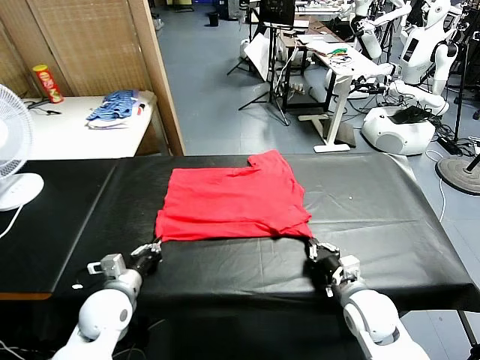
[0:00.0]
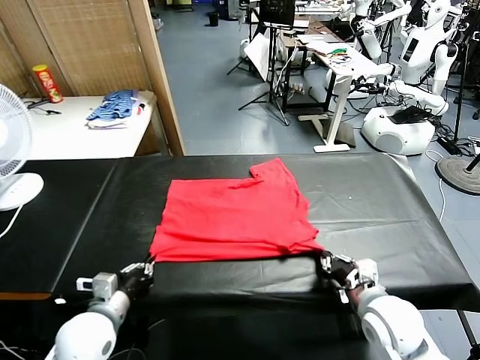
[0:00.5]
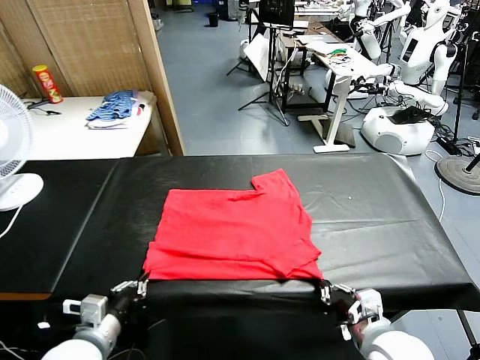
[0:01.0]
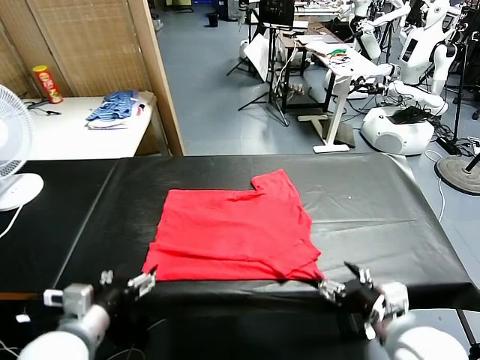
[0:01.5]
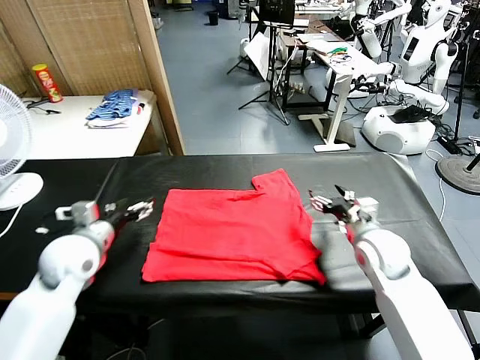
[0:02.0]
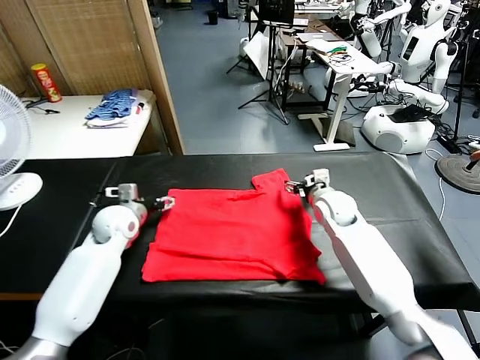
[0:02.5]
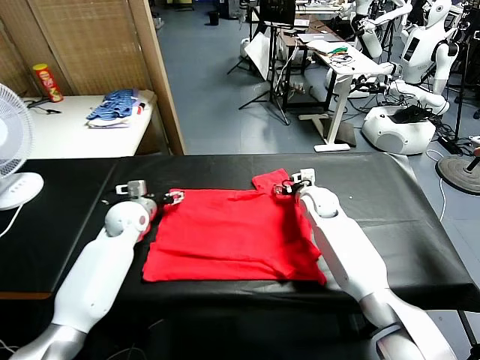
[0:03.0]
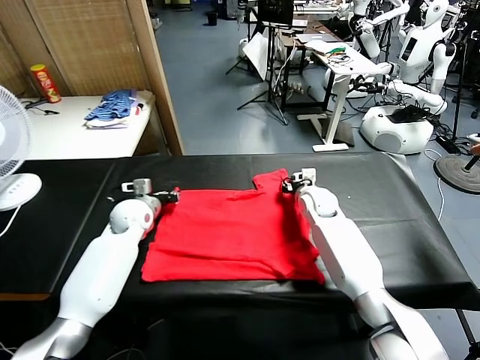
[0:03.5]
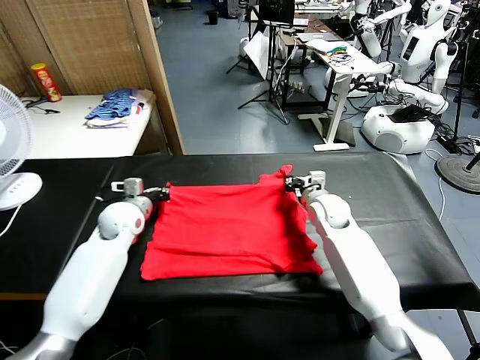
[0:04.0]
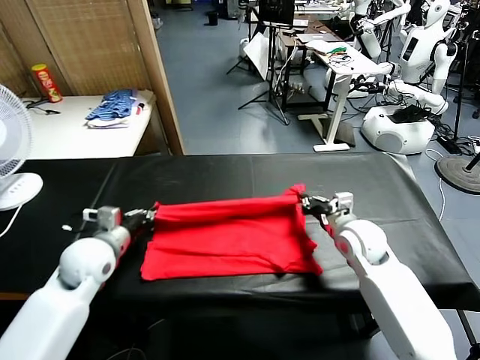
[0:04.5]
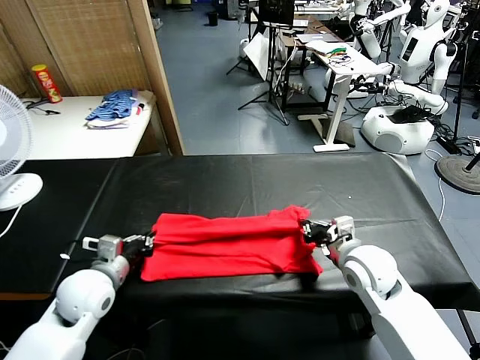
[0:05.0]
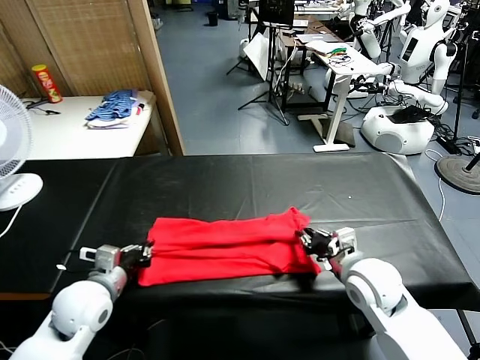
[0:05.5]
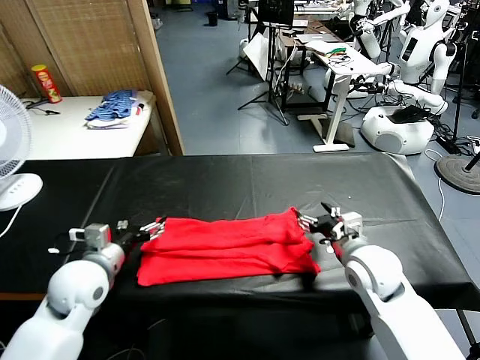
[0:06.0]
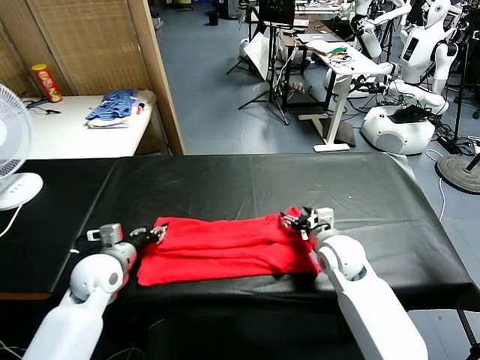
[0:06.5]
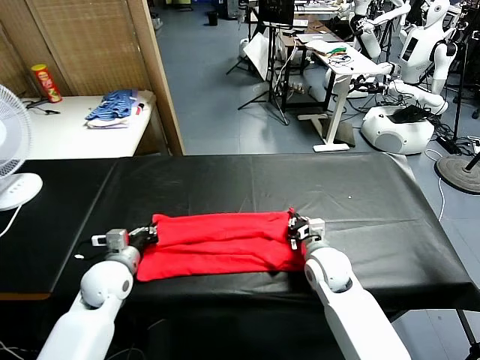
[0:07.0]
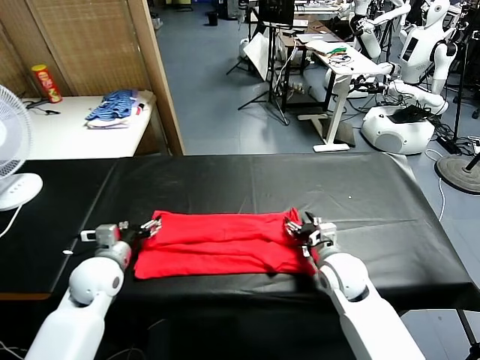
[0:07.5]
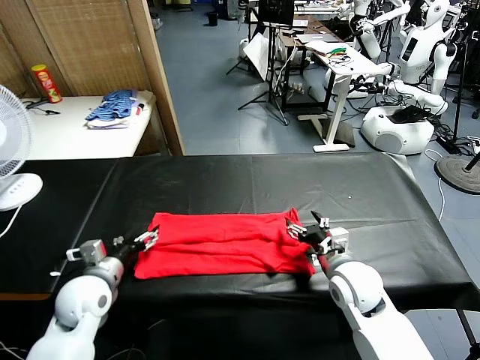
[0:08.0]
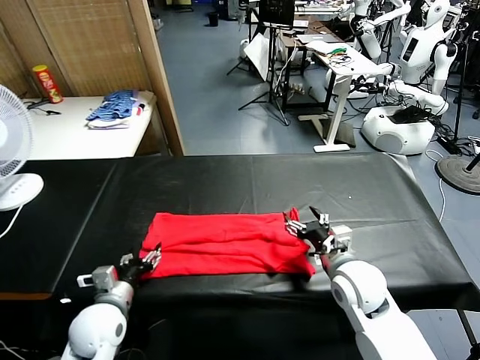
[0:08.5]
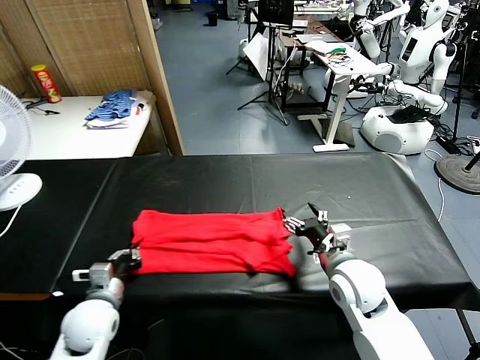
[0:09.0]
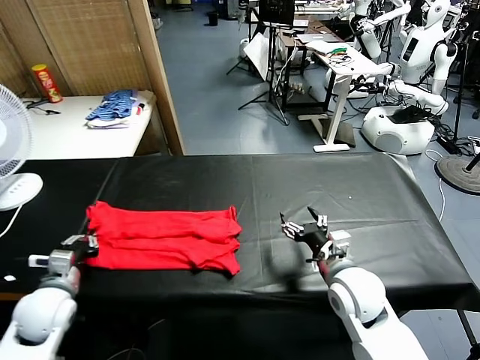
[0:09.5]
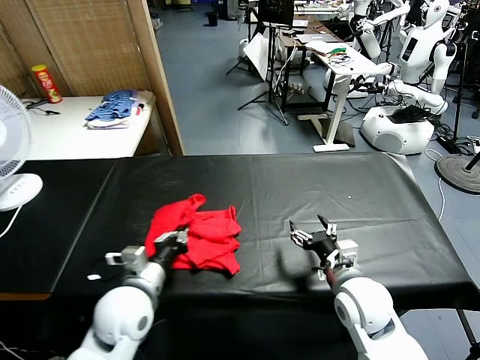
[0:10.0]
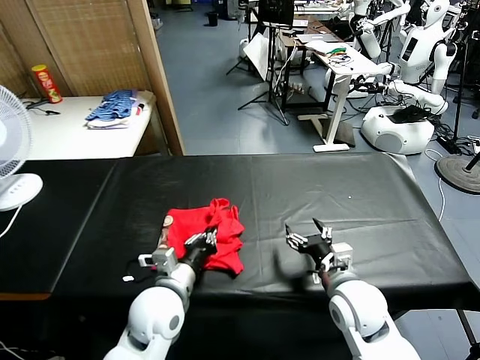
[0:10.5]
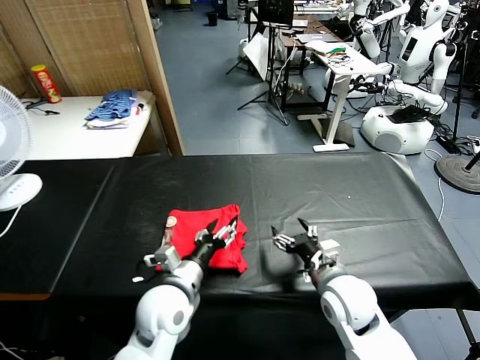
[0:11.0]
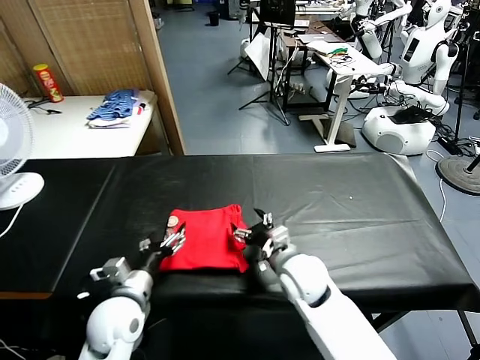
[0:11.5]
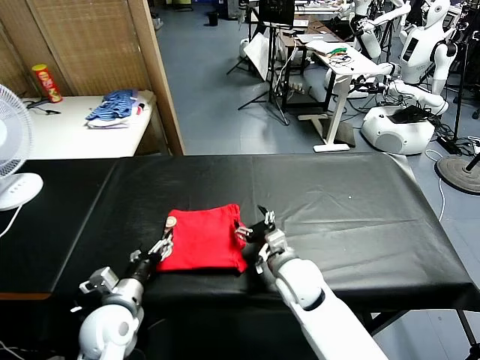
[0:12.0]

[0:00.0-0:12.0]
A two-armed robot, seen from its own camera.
Task of the whole recording: fold and organize the clothes.
Step, 0:01.5 to 0:03.5: use both grippers simultaneously to clamp the upper edge of the clothing fabric.
Step, 0:04.0 to 0:05.5: use both grippers to drag the upper edge of the fabric backward and fold it over the lower edge.
Step, 0:06.0 to 0:08.5: use the left gripper to clamp the left edge of the fabric.
Step, 0:09.0 to 0:11.0: use the left gripper to drag the left edge of the fabric to the left and folds it over the right edge.
0:00.0 to 0:02.0: The left gripper heads upward and forward, covering some 15 cm, and opens its fingers, while the right gripper moves forward, approximately 15 cm, and opens up.
0:02.0 to 0:04.0: The right gripper travels forward and back again, roughly 10 cm each way, and closes up; the left gripper is displaced forward by some 5 cm, and closes up.
0:04.0 to 0:06.0: The grippers both shift backward by about 15 cm. The right gripper opens. Meanwhile the left gripper opens its fingers.
0:06.0 to 0:08.0: The left gripper shifts roughly 5 cm downward, and closes, then reopens, while the right gripper closes and opens again.
0:08.0 to 0:10.0: The left gripper shifts about 10 cm to the right, and closes.
0:10.0 to 0:12.0: The right gripper travels to the left and forward by approximately 10 cm. Meanwhile the left gripper heads downward and to the left, covering roughly 10 cm, and opens up.

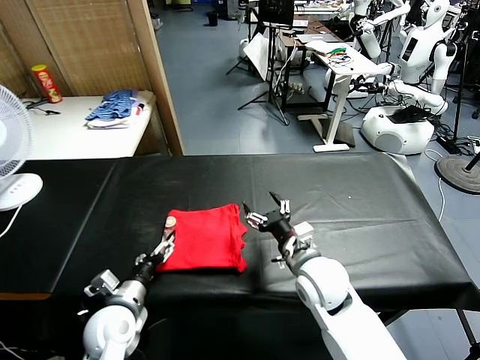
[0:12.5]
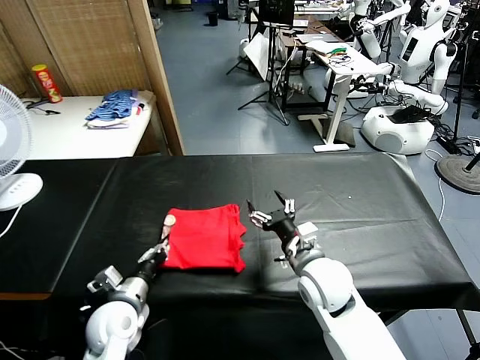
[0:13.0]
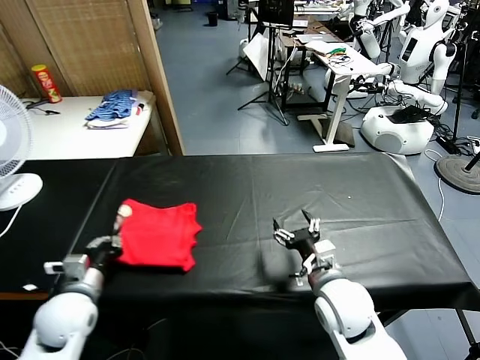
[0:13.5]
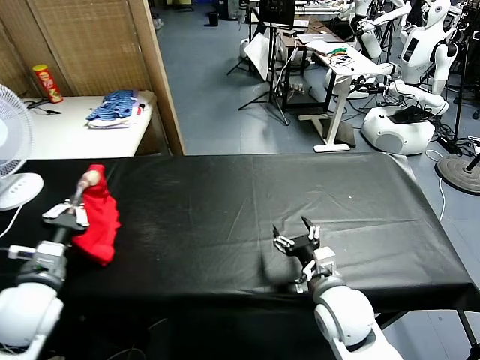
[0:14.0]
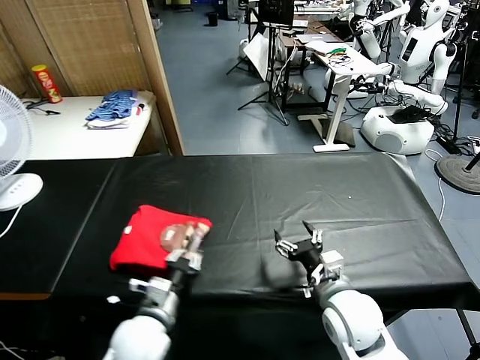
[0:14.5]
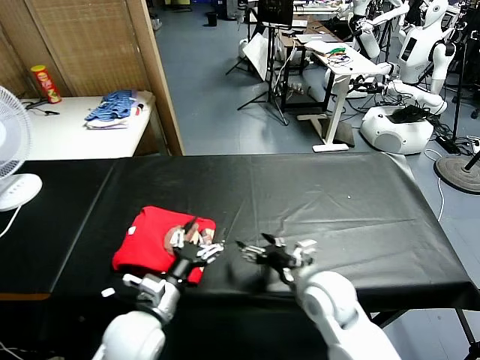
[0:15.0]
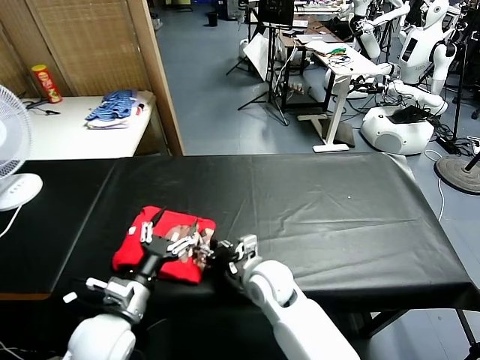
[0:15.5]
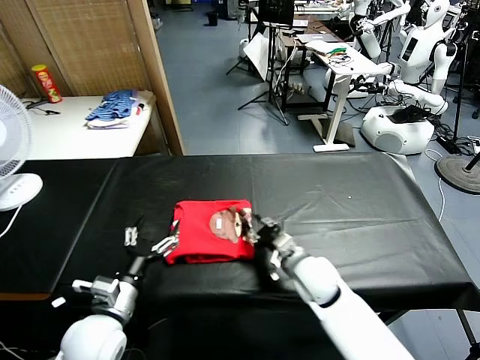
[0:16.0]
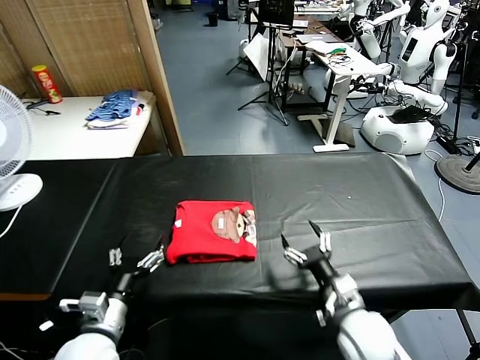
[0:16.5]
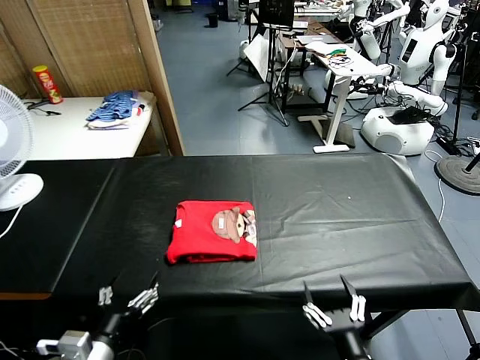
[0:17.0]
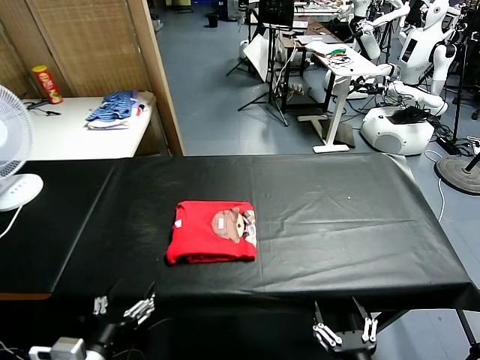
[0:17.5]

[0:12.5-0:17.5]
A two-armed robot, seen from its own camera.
Task of the whole recording: fold and organize the clothes.
Step, 0:12.5 to 0:14.5: Flip the folded clothes over with left gripper.
Step, 0:15.0 to 0:16.0: Drag the clothes to the center of the table.
0:12.5 to 0:15.0: The left gripper is displaced to the right and upward by approximately 10 cm, and closes, then reopens.
0:15.0 to 0:17.5: The left gripper moves backward and to the left, approximately 15 cm; the right gripper is displaced backward by approximately 25 cm, and closes, then reopens.

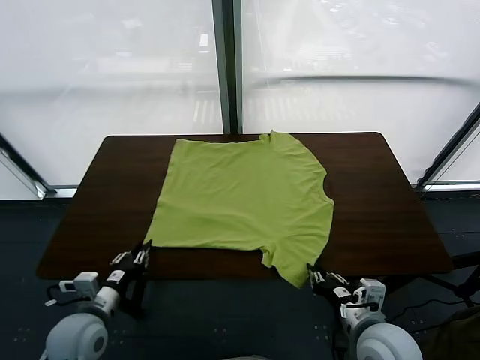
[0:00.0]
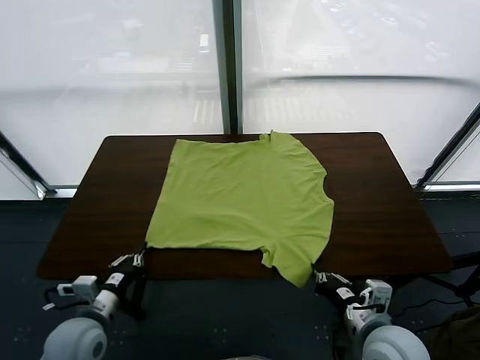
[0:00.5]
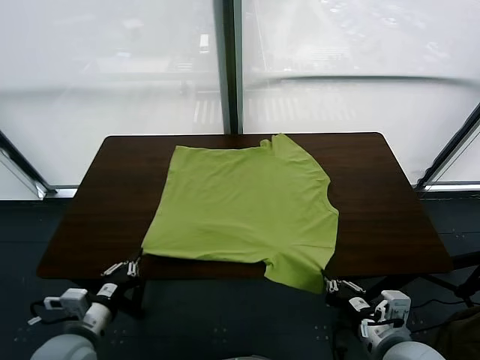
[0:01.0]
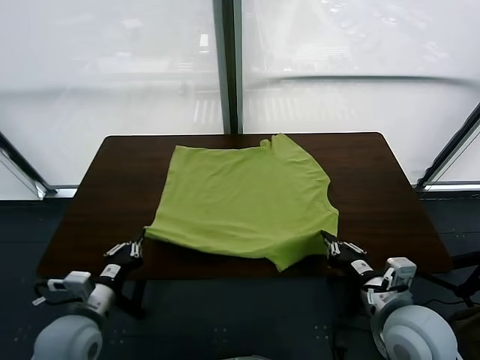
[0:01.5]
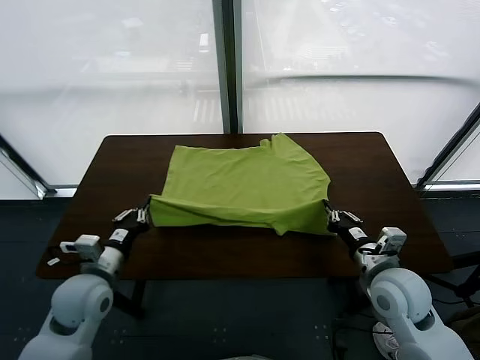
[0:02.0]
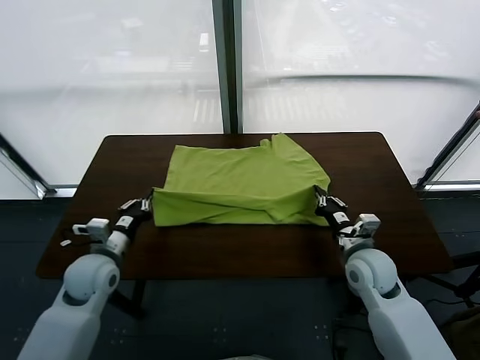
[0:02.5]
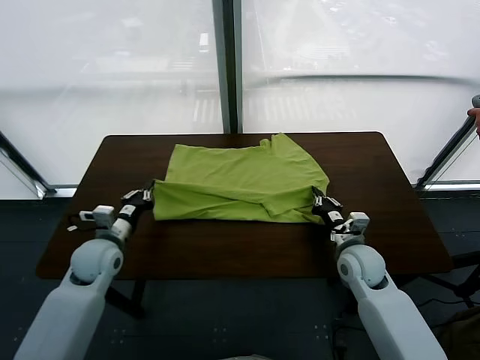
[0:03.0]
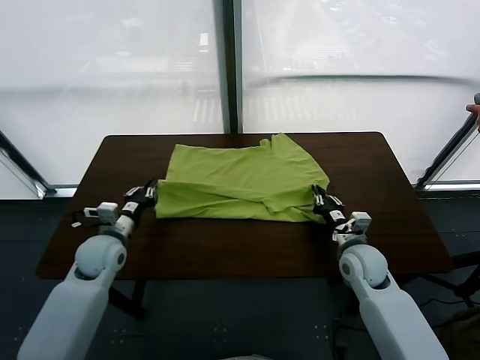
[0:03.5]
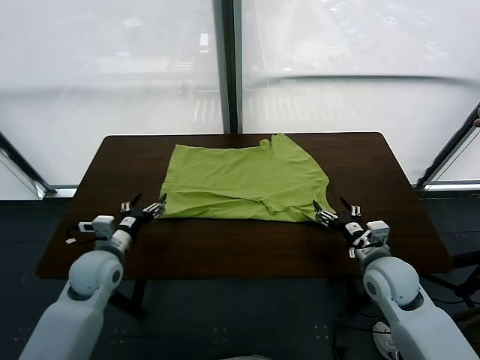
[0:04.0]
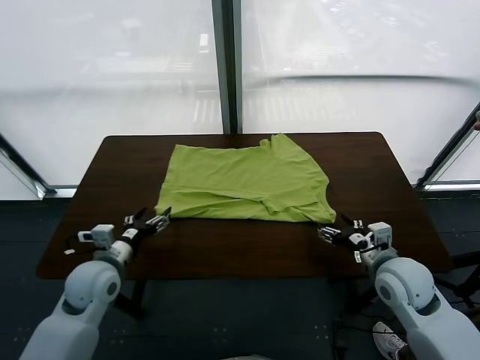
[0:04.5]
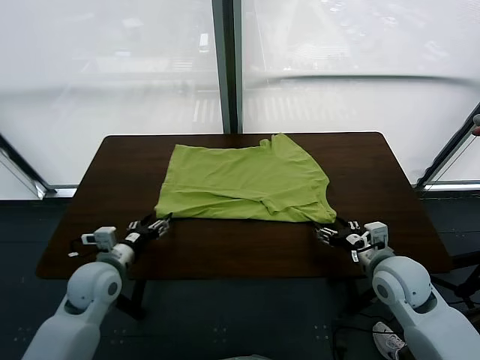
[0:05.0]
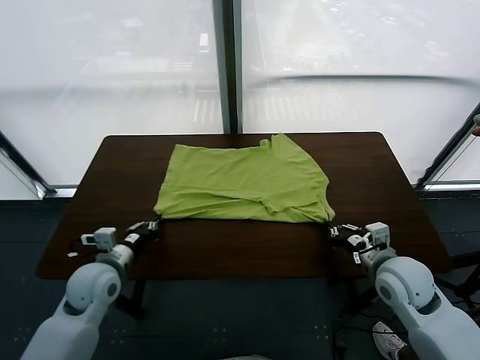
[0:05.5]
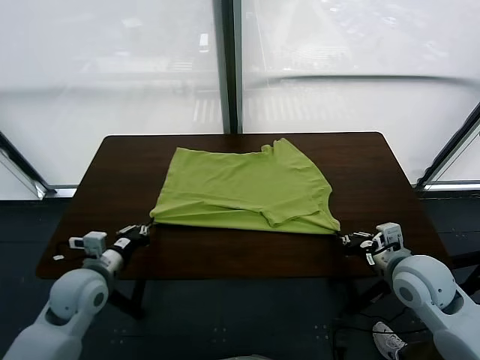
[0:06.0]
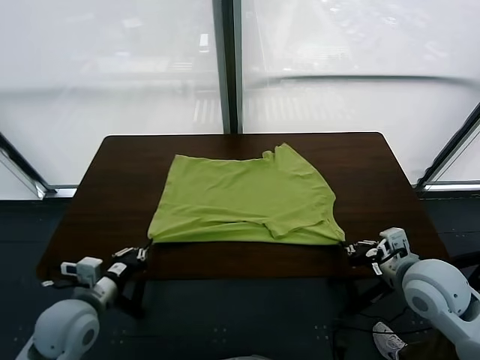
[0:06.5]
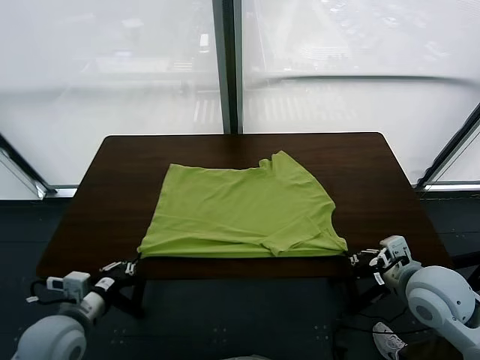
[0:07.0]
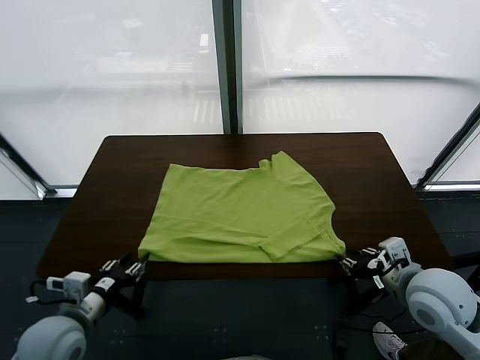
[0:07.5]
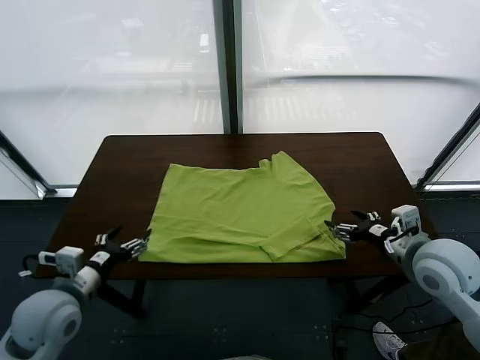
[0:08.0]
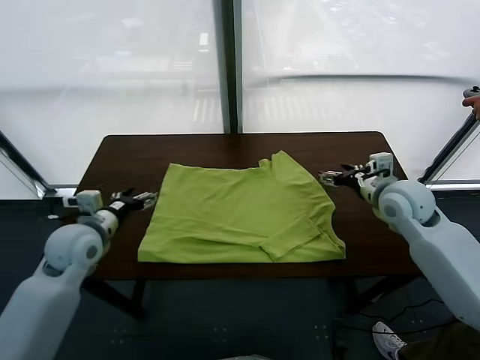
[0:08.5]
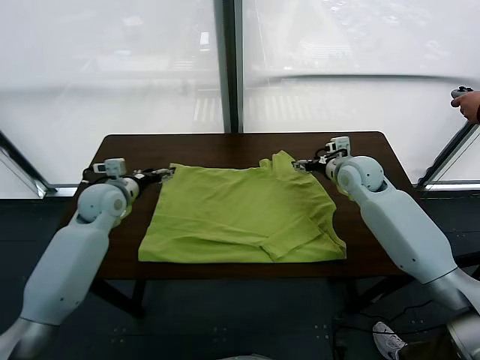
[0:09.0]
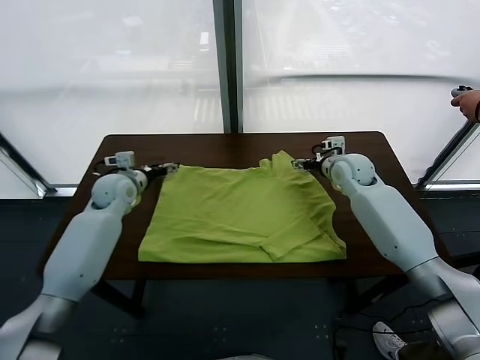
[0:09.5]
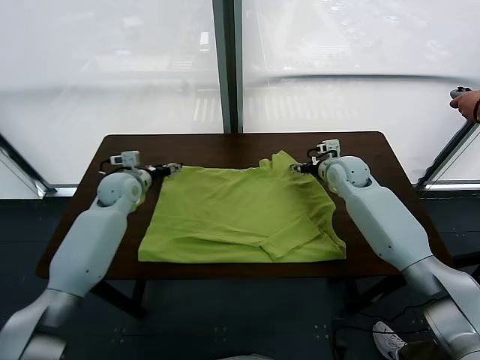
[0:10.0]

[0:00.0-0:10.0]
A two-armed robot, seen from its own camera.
Task of the whole recording: fold and organize the clothes.
Step, 0:00.0 to 0:00.5: use both grippers simultaneously to clamp the lower edge of the clothing fabric.
Step, 0:01.0 to 0:03.5: use both grippers to drag the lower edge of the fabric forward and fold it over the upper edge.
Step, 0:04.0 to 0:07.5: Drag the clothes downward with both gripper.
0:02.0 to 0:04.0: The right gripper travels forward and downward by about 15 cm, and opens its fingers. The left gripper travels forward by roughly 20 cm.
0:04.0 to 0:06.0: The left gripper shifts some 5 cm backward, and opens, then closes again. The right gripper shifts some 5 cm upward, and closes up.
0:06.0 to 0:08.0: The right gripper heads upward, covering some 5 cm, and opens up. The left gripper heads backward, covering some 10 cm.
0:08.0 to 0:10.0: The two grippers go approximately 30 cm forward. The left gripper opens its fingers.
